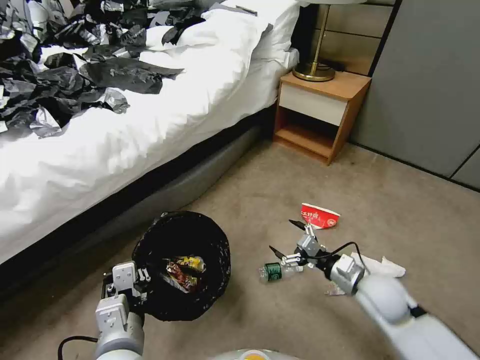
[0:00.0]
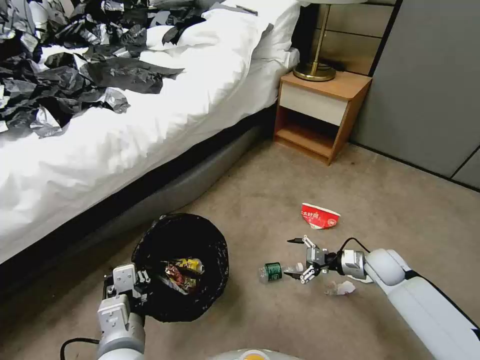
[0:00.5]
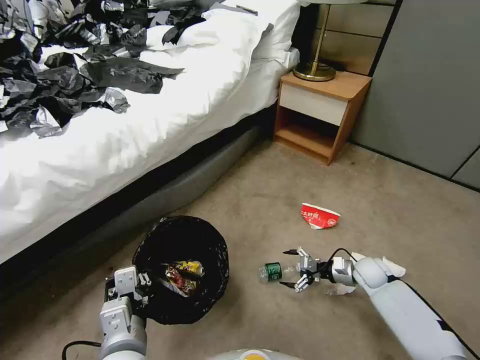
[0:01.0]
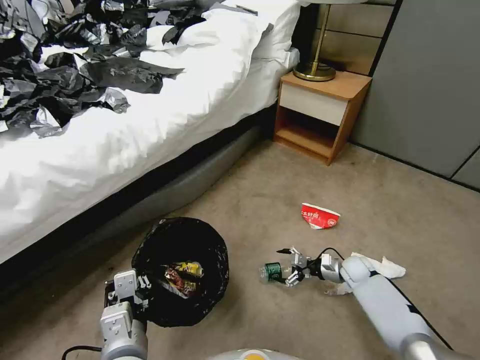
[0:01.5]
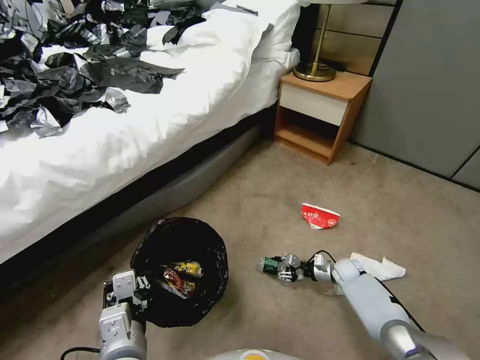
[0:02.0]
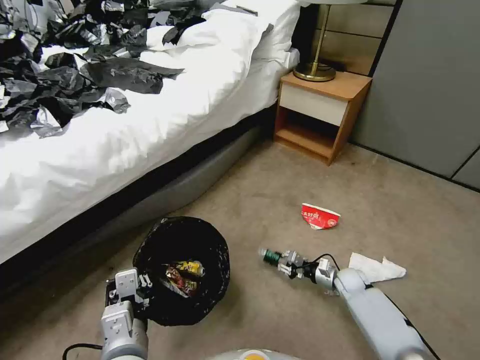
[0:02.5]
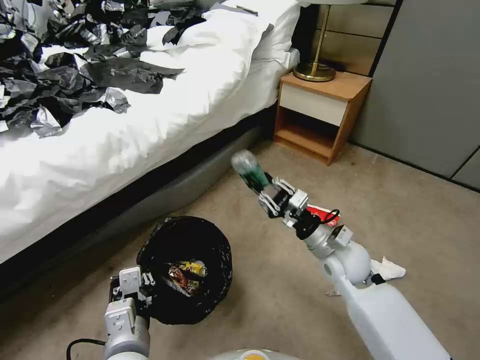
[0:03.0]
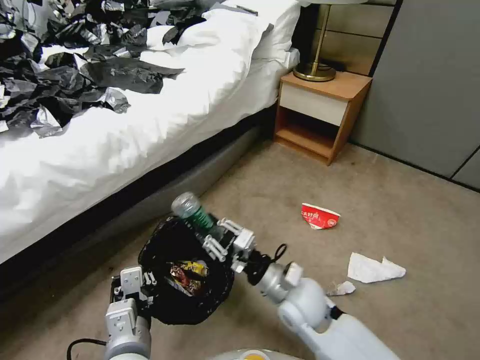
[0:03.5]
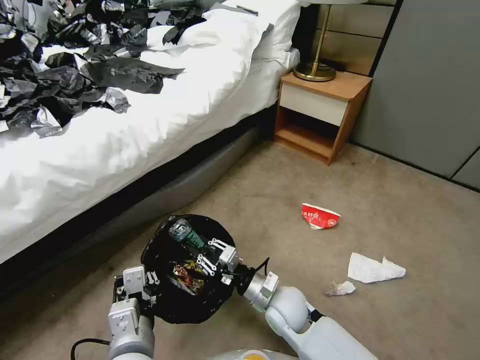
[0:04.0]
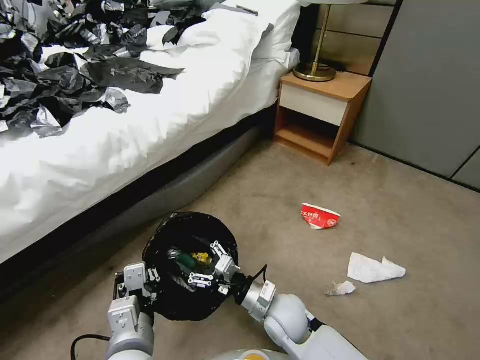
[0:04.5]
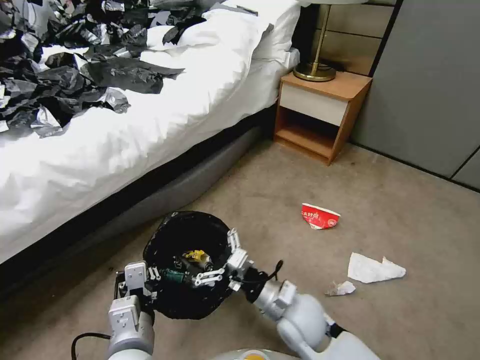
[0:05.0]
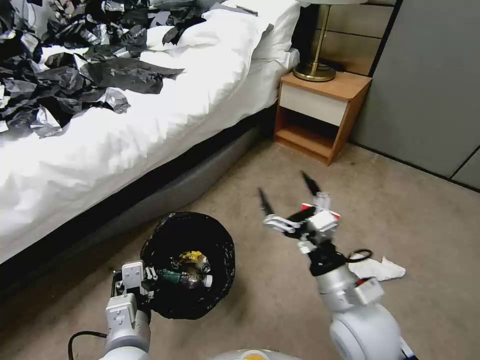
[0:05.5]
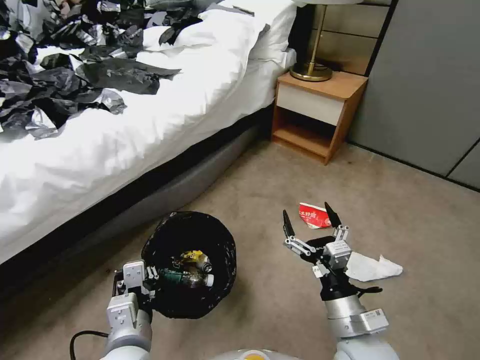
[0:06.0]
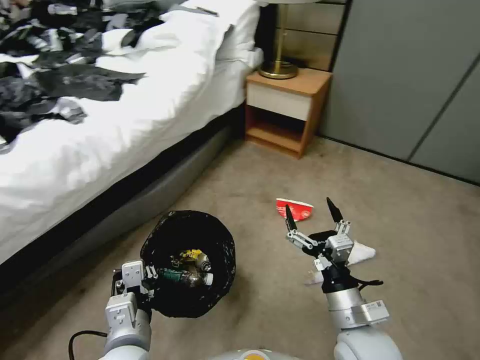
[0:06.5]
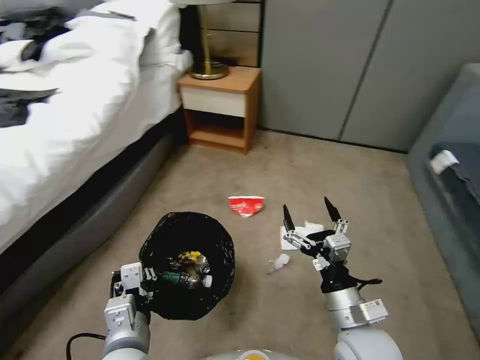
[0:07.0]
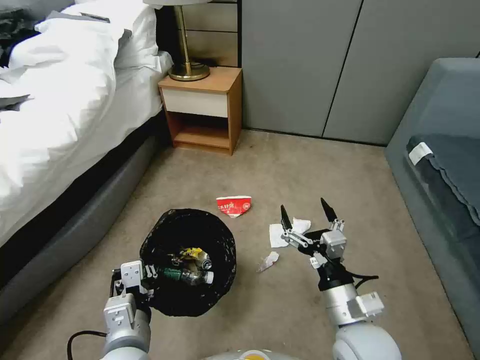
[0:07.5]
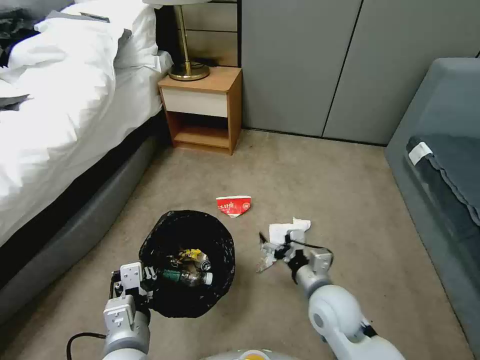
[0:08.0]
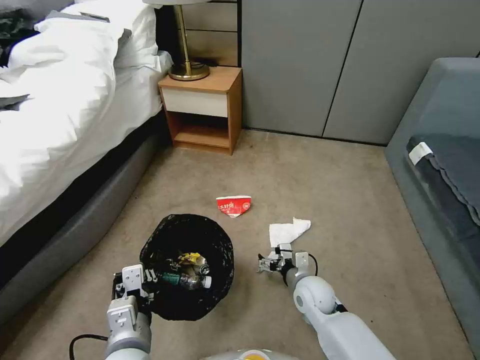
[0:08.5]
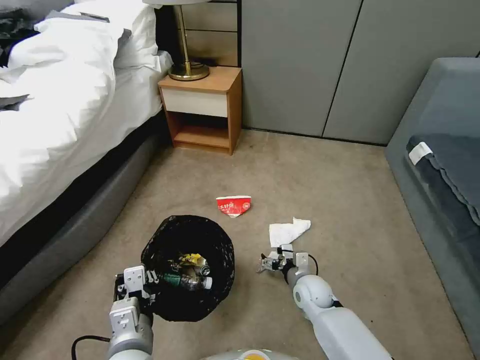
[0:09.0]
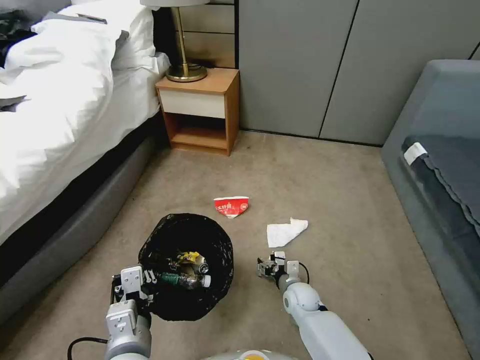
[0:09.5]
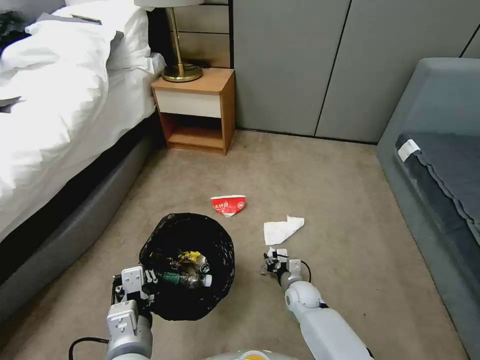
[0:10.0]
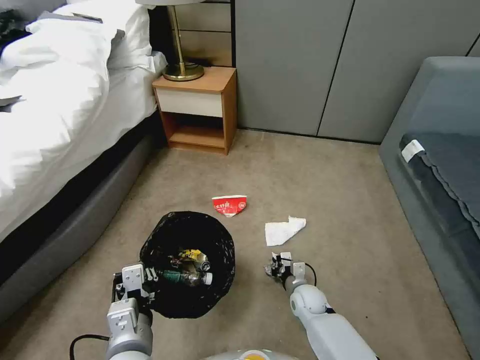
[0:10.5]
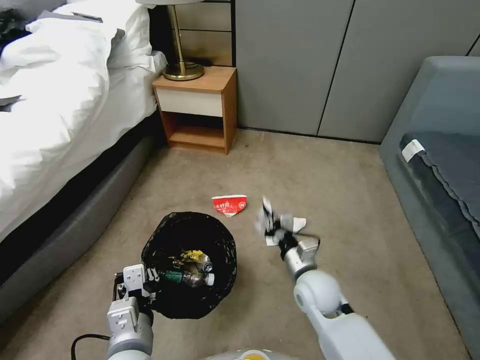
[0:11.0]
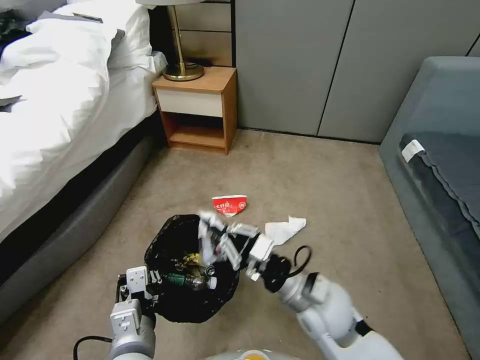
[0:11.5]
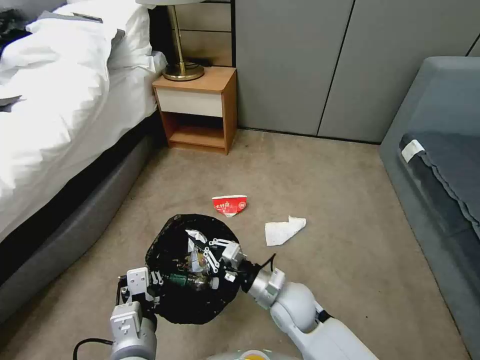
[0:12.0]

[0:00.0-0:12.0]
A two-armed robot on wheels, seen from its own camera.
Task of the whole recording: Pick up the trash bin, then pick up the garbage from the floor and place it into the trash bin.
0:00.0 to 0:02.0: The right gripper heads downward and forward, covering approximately 25 cm, and closes its fingers.
0:02.0 to 0:04.0: The right gripper is displaced to the left, upward and backward by approximately 30 cm.
0:04.0 to 0:06.0: The right gripper heads to the right, backward and upward, covering about 20 cm, and opens its fingers.
0:06.0 to 0:08.0: The right gripper is displaced forward by approximately 10 cm.
0:08.0 to 0:10.0: The right gripper travels downward by roughly 20 cm, and closes its fingers.
0:10.0 to 0:12.0: The right gripper is displaced upward by about 15 cm, and closes.

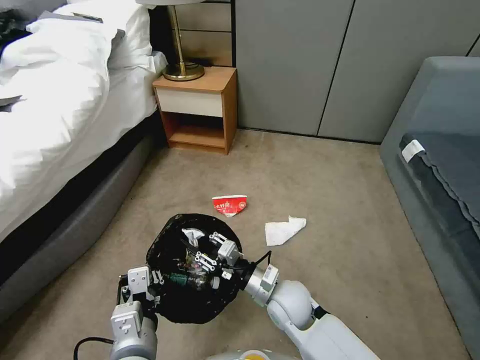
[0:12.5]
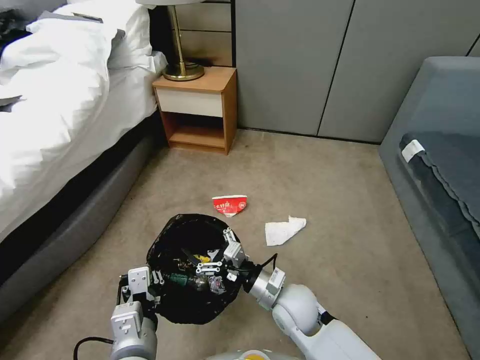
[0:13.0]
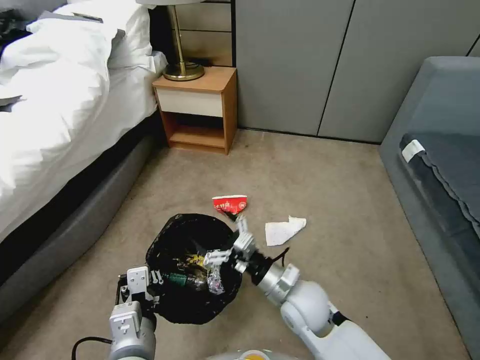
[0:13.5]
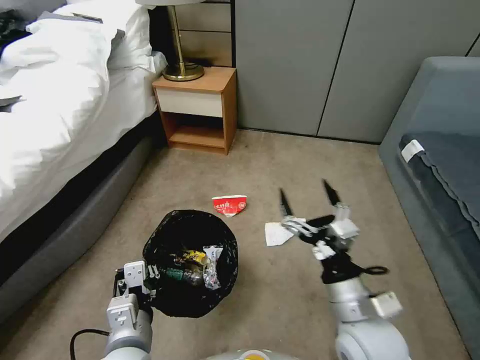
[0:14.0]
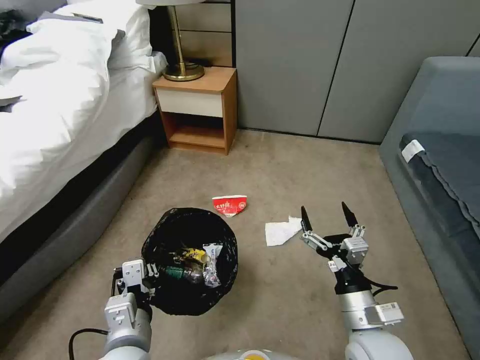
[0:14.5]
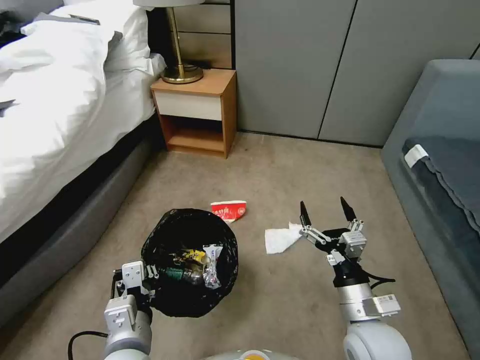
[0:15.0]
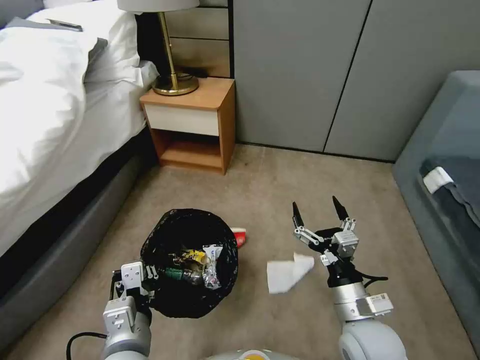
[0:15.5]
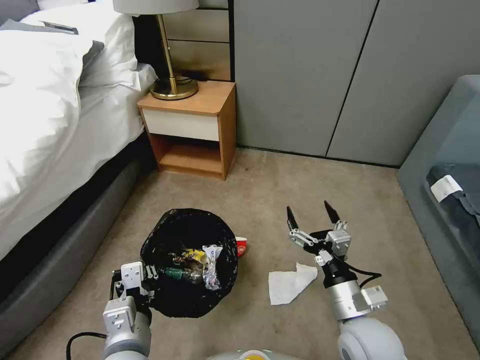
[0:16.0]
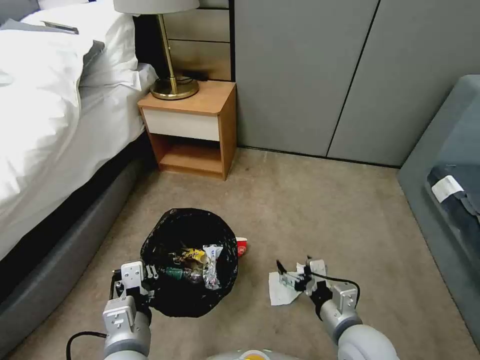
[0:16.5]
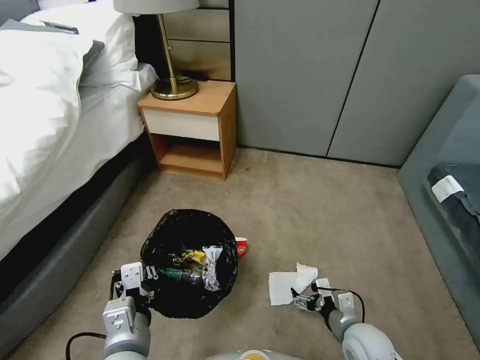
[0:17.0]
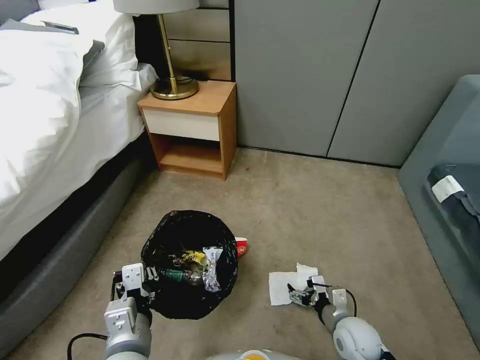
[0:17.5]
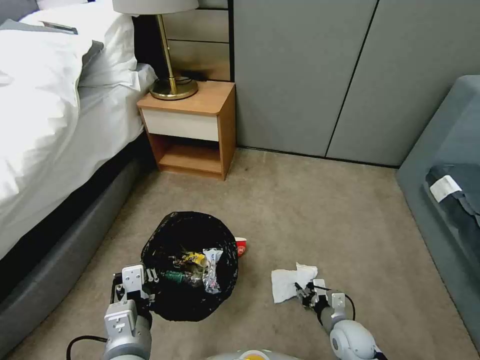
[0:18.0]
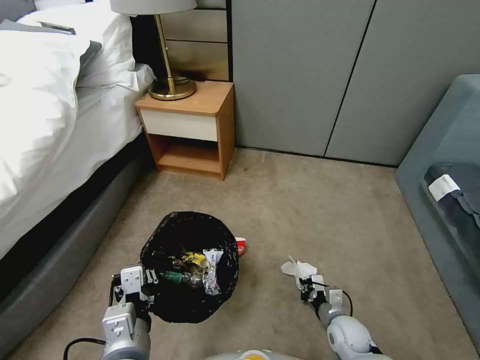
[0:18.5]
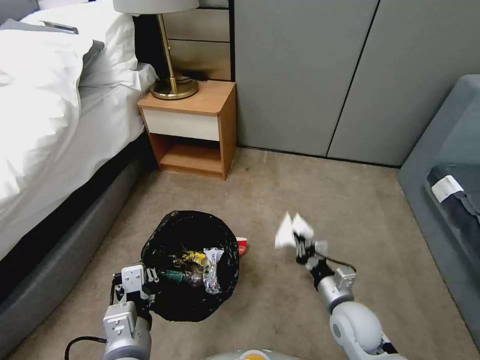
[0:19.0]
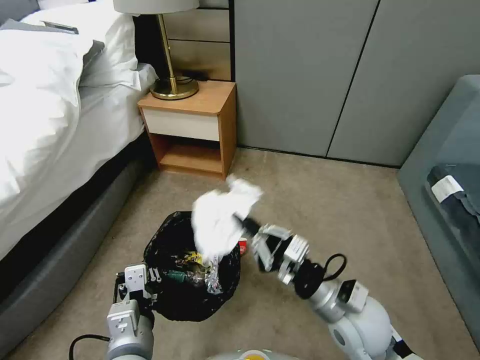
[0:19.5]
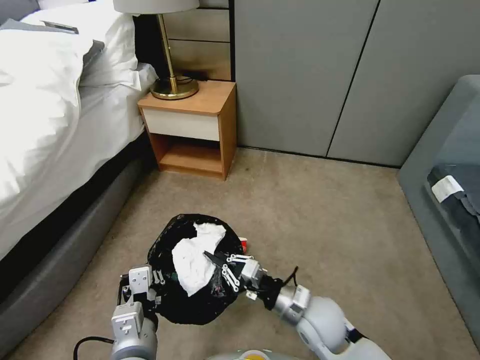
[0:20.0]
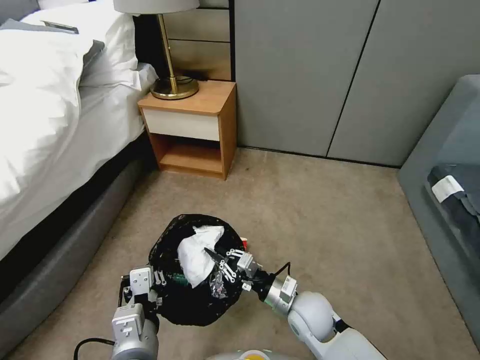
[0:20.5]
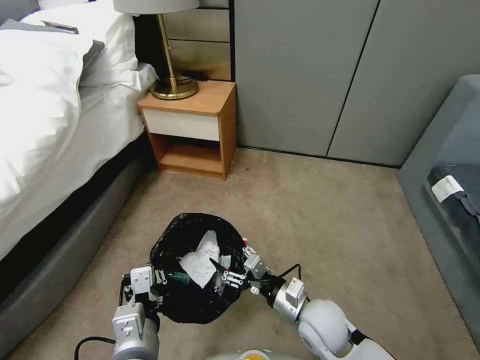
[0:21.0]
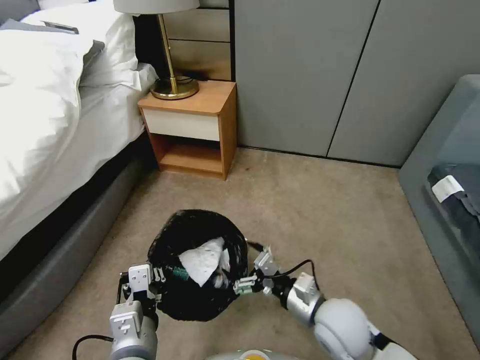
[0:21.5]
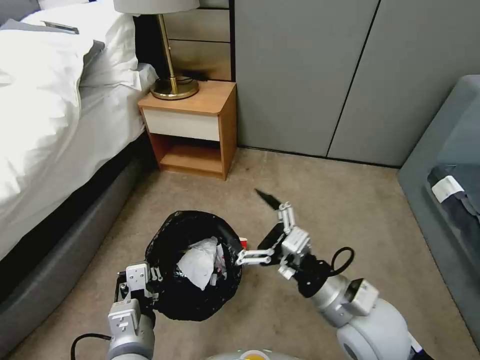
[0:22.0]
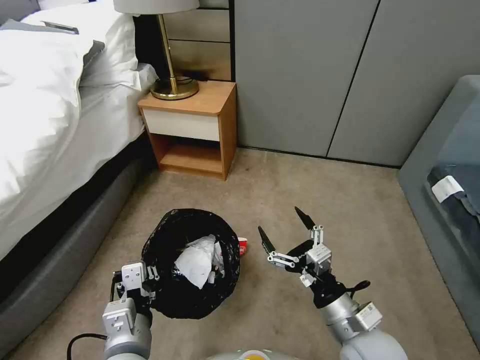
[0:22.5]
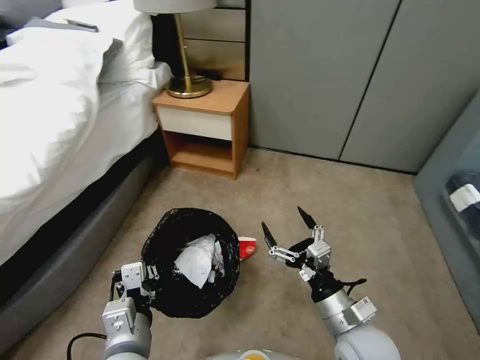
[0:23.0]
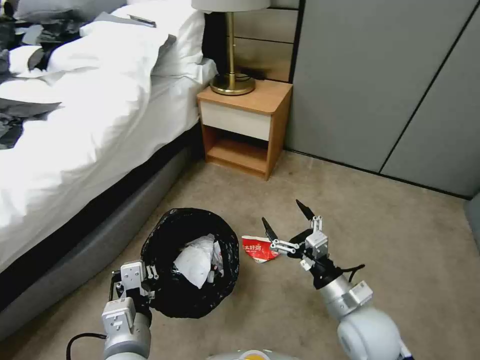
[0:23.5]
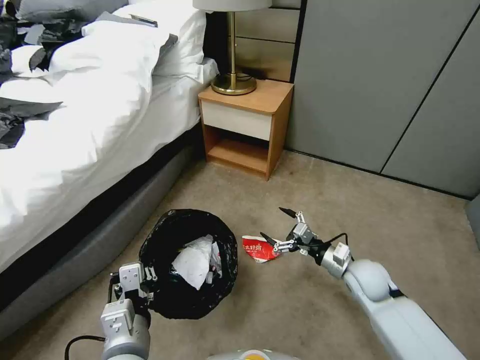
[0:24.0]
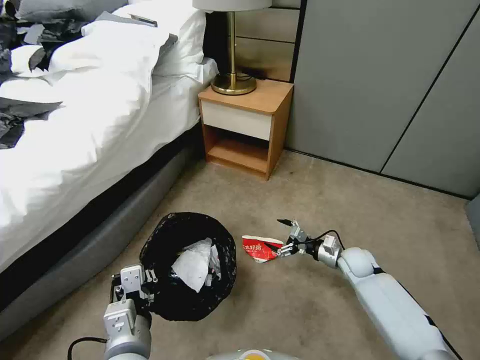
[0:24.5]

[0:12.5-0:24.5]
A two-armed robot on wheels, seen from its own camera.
Task of the whole recording: Pick up the trash bin, then pick up the garbage from the floor and place it into the trash bin.
0:12.5 to 0:14.5: The right gripper is displaced to the right, backward and upward by about 20 cm, and opens.
0:16.5 to 0:18.5: The right gripper is displaced downward by roughly 20 cm, and closes its fingers.
0:18.5 to 0:20.5: The right gripper travels upward and to the left by about 20 cm.
0:20.5 to 0:22.5: The right gripper moves upward, backward and to the right, approximately 15 cm, and opens up.
0:22.5 to 0:24.5: The right gripper moves forward, downward and to the right, roughly 30 cm.

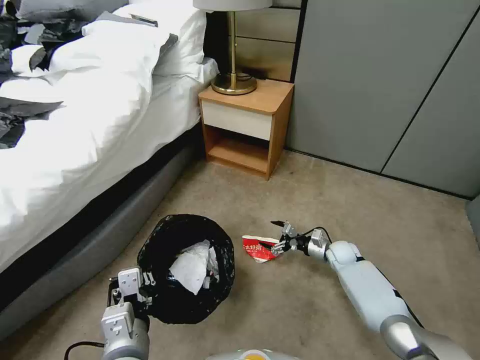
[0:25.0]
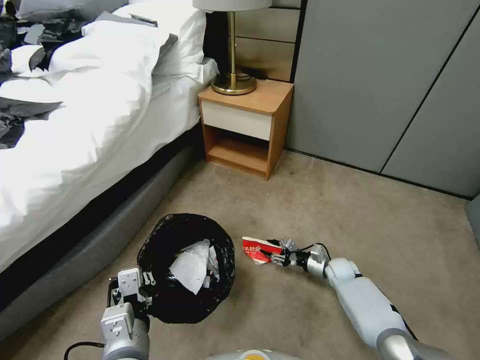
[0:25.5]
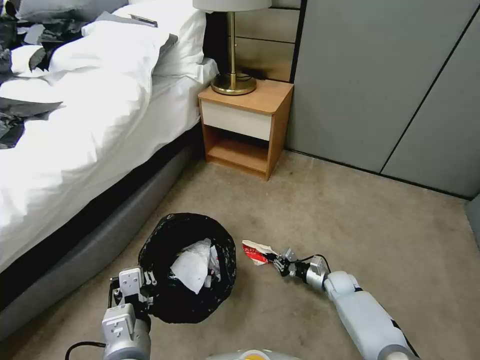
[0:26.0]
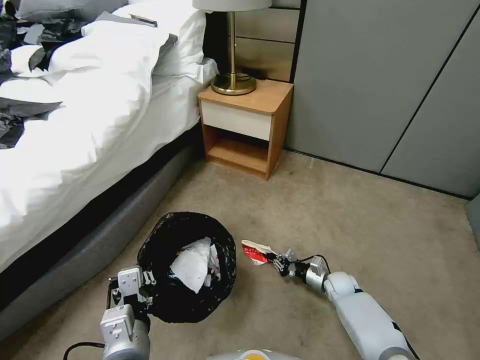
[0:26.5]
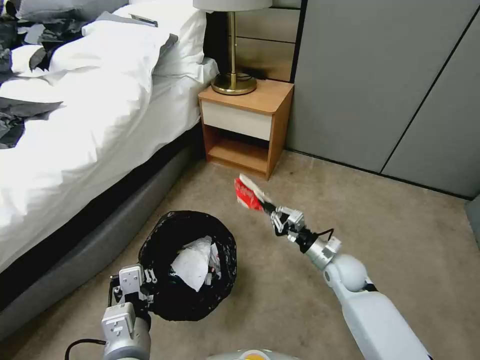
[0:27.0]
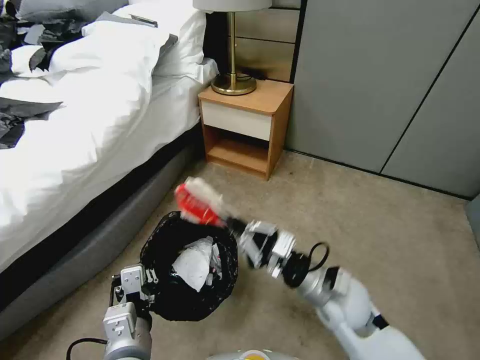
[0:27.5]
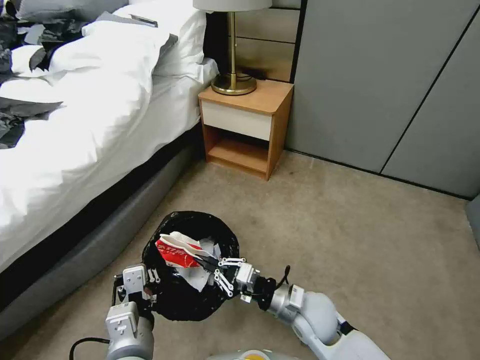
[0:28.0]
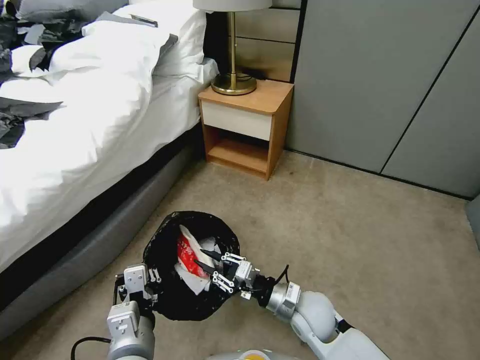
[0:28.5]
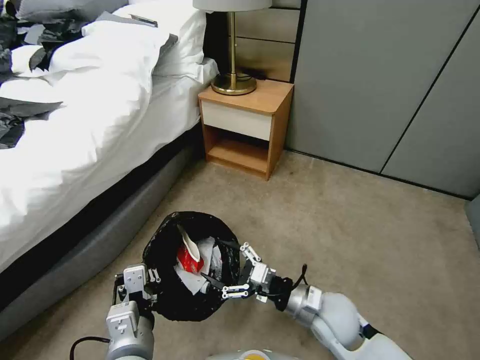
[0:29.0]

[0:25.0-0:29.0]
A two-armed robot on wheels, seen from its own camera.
Task of the whole recording: Pick up the trash bin, then pick up the garbage from the floor and place it into the trash bin.
0:25.0 to 0:27.0: The right gripper shifts some 15 cm upward, backward and to the left, and closes its fingers.
0:27.0 to 0:29.0: The right gripper heads backward, to the left and upward, covering approximately 15 cm, and opens.
